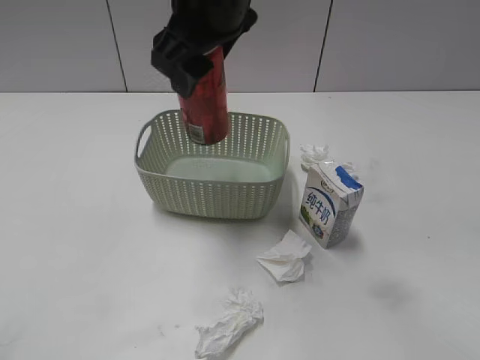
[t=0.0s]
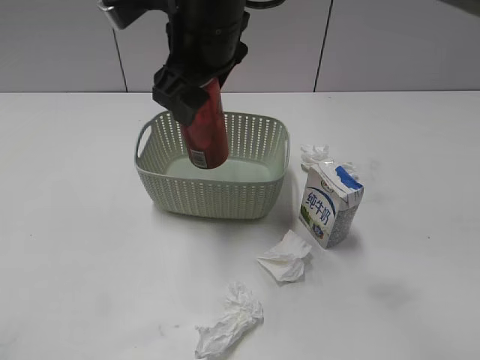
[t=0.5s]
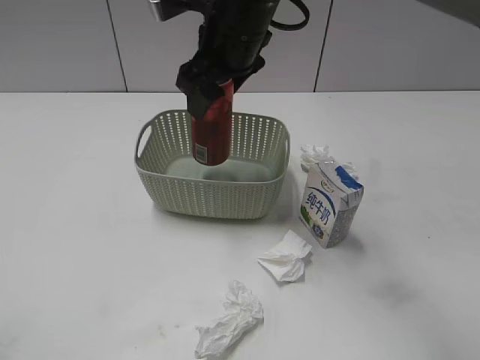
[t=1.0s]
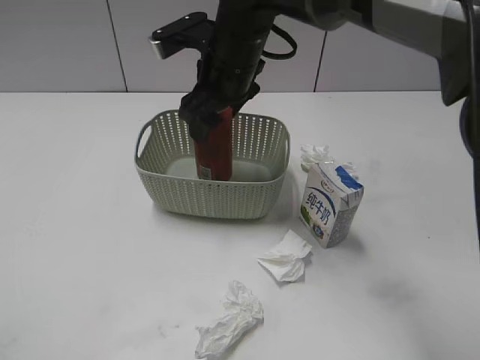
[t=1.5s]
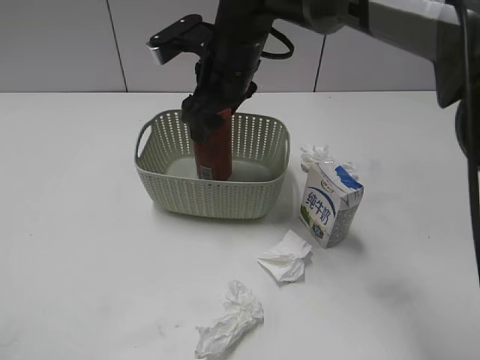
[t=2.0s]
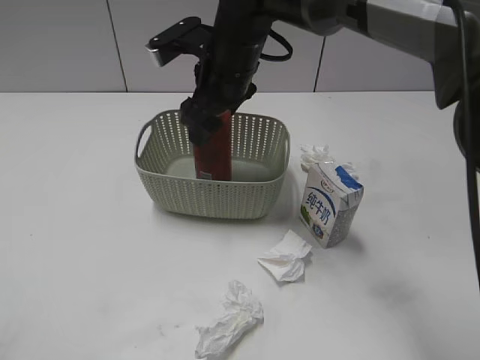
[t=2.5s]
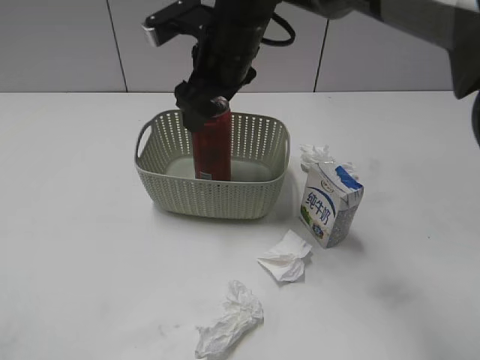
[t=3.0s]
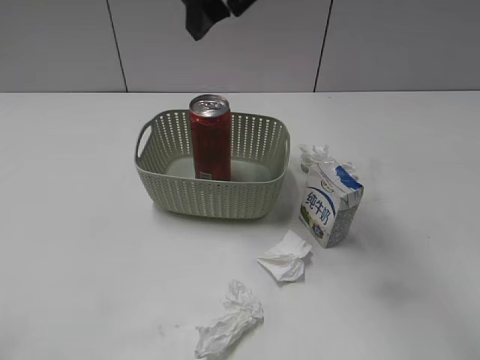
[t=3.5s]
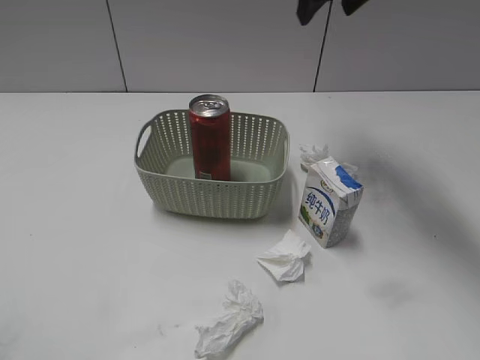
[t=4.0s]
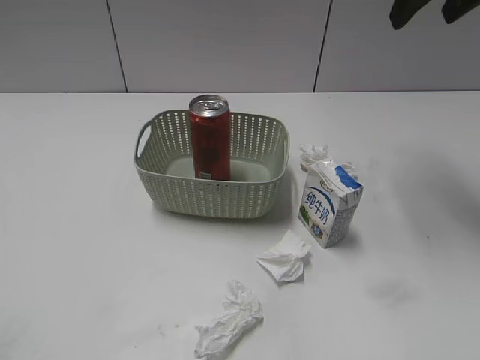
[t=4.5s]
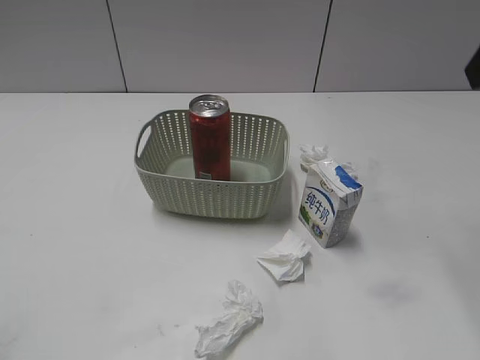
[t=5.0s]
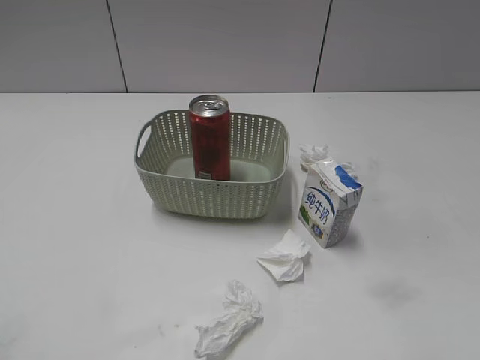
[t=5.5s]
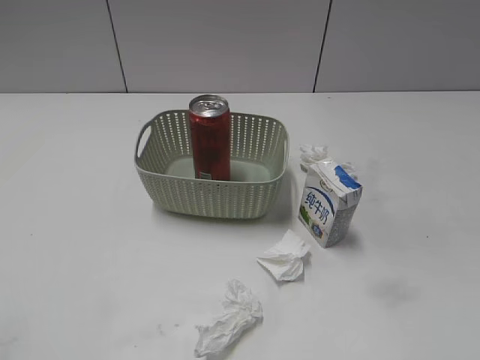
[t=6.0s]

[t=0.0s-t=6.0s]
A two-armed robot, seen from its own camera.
Step, t=0.0s to t=3.0s: Place the cola can in the basket with right gripper.
t=0.0s to t=2.0s: The right gripper moves downward and forward, roughly 15 cm.
t=2.0s to t=4.0s: The right gripper goes some 20 cm to the right and upward.
t=4.0s to t=6.0s: The right gripper travels backward and to the right by roughly 40 cm.
